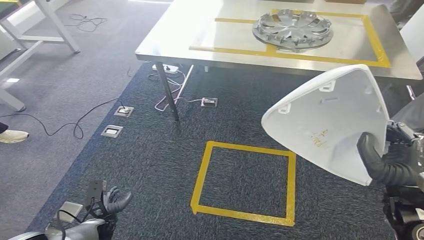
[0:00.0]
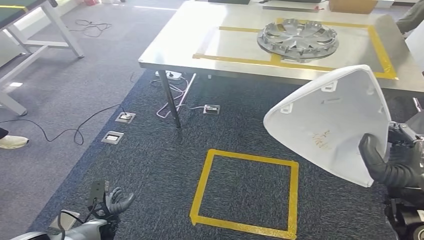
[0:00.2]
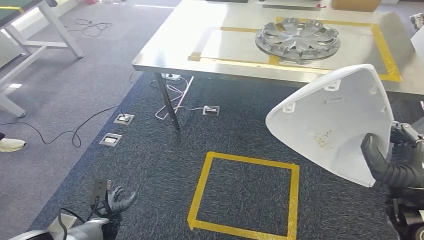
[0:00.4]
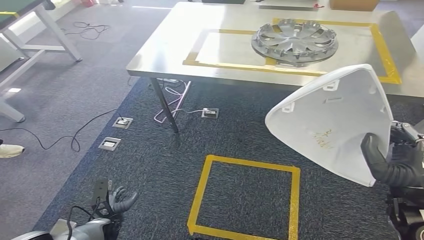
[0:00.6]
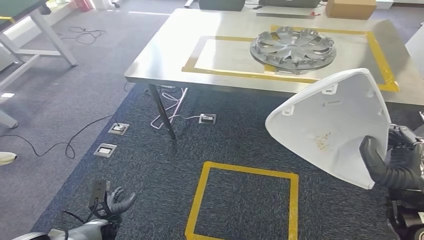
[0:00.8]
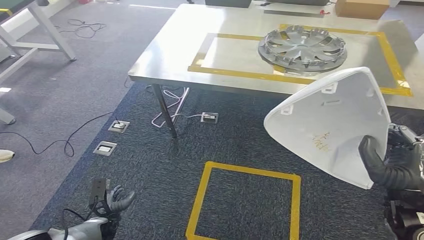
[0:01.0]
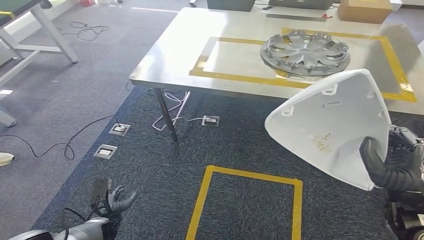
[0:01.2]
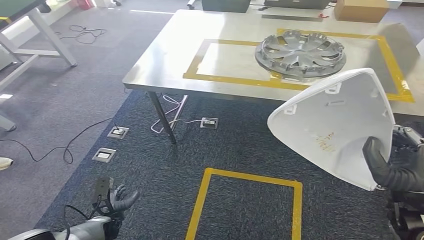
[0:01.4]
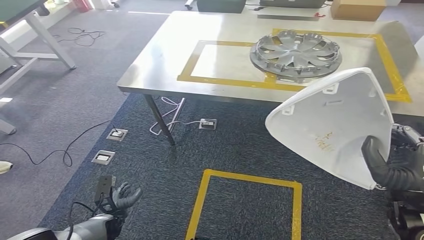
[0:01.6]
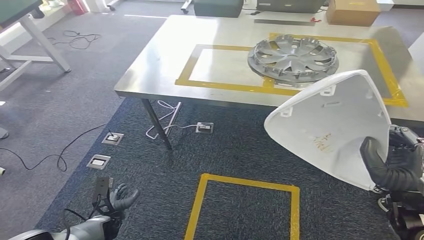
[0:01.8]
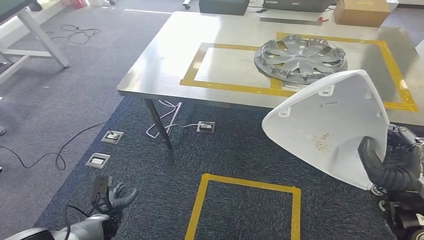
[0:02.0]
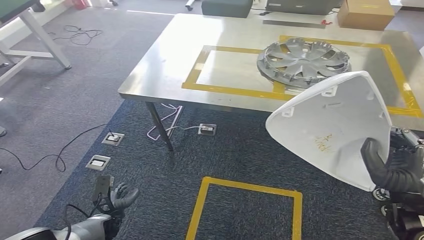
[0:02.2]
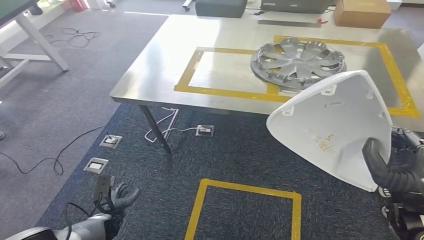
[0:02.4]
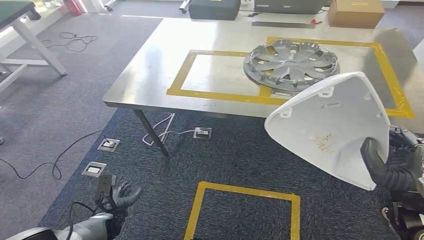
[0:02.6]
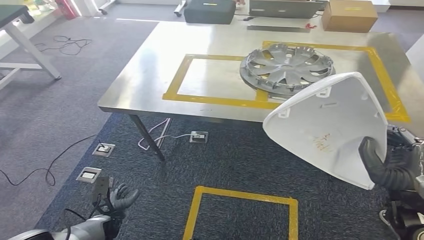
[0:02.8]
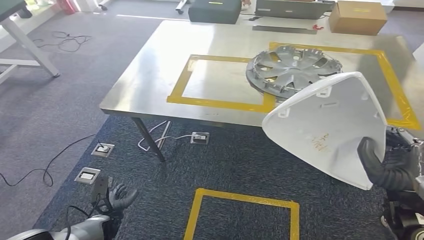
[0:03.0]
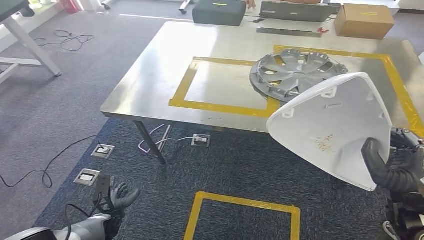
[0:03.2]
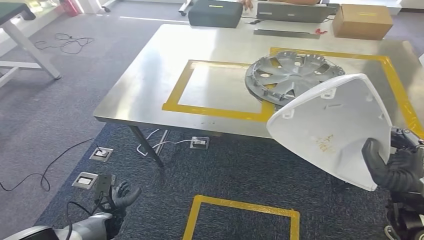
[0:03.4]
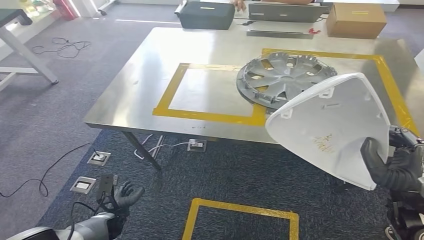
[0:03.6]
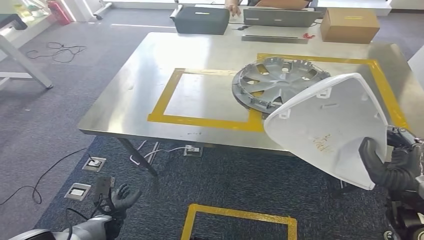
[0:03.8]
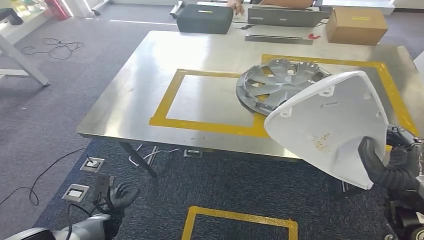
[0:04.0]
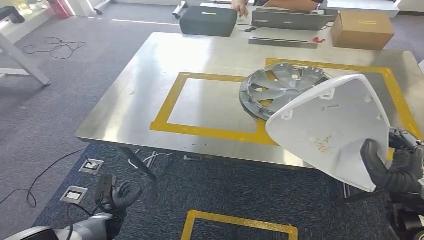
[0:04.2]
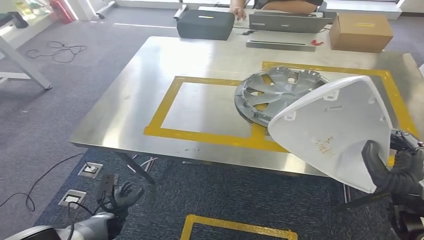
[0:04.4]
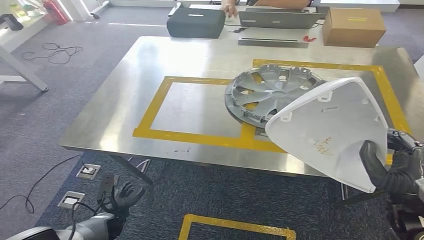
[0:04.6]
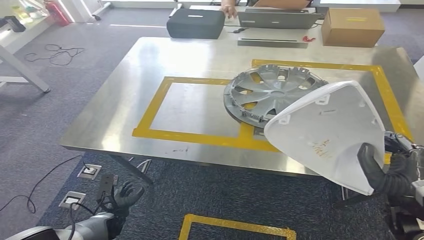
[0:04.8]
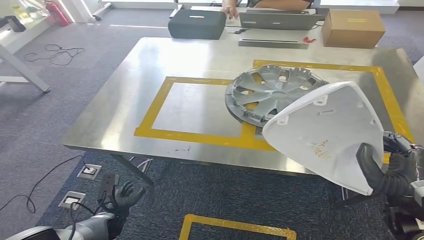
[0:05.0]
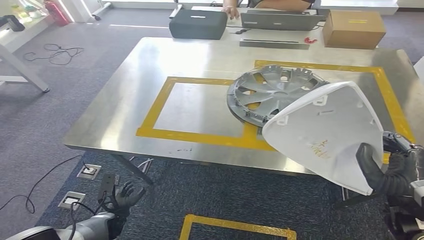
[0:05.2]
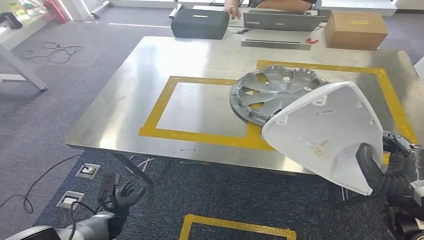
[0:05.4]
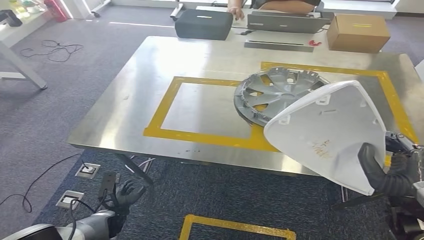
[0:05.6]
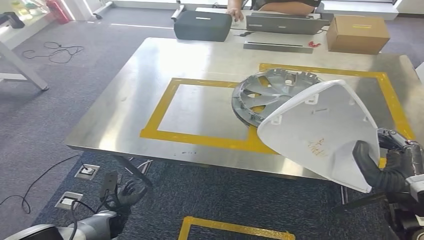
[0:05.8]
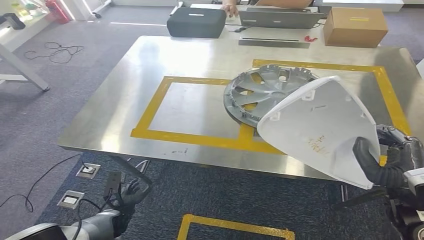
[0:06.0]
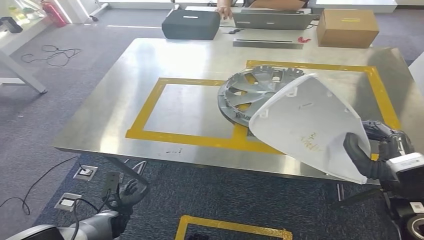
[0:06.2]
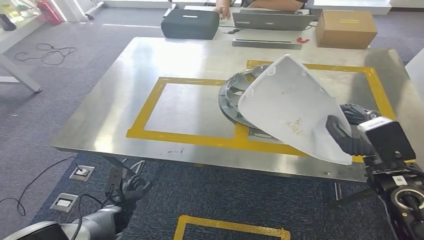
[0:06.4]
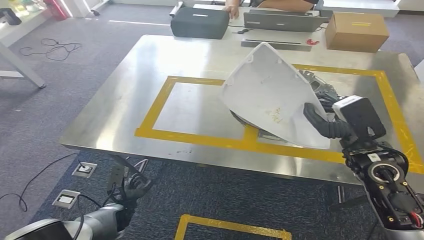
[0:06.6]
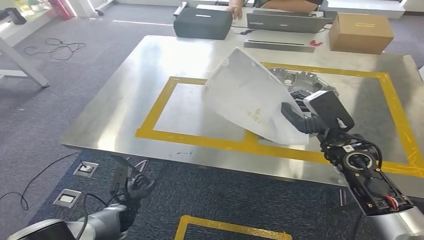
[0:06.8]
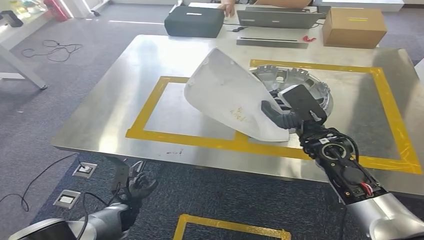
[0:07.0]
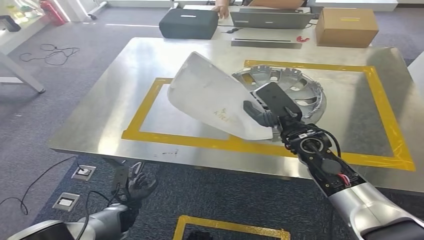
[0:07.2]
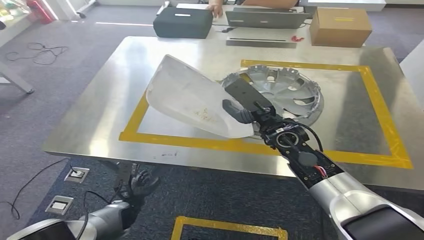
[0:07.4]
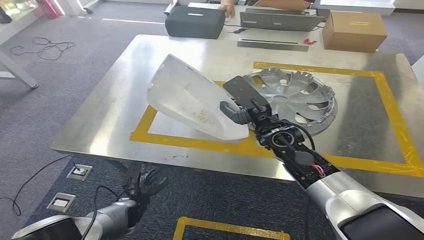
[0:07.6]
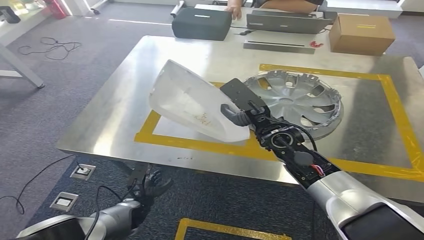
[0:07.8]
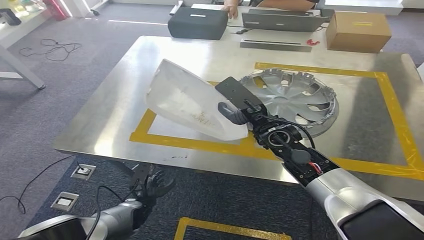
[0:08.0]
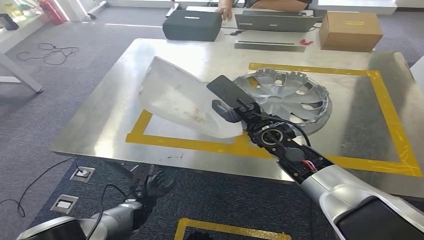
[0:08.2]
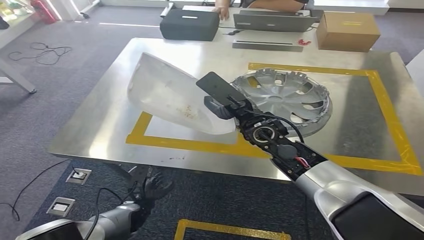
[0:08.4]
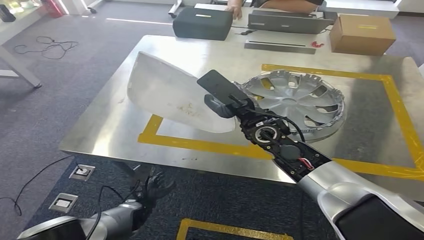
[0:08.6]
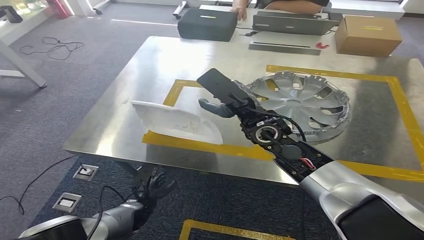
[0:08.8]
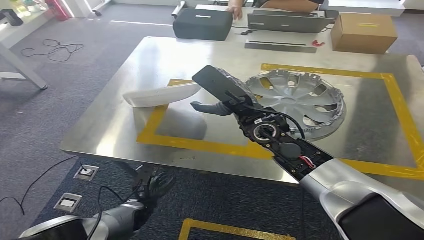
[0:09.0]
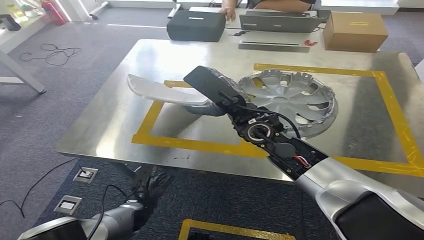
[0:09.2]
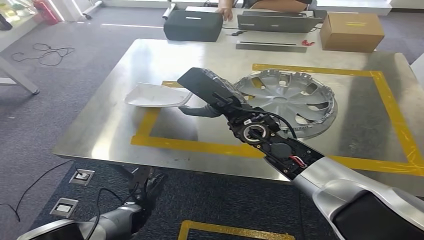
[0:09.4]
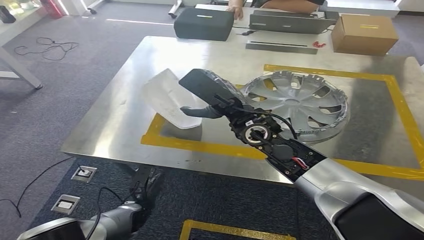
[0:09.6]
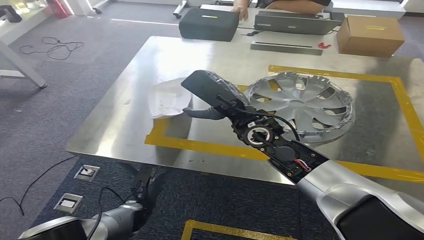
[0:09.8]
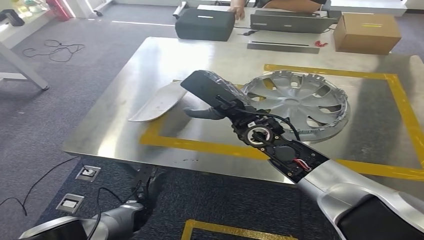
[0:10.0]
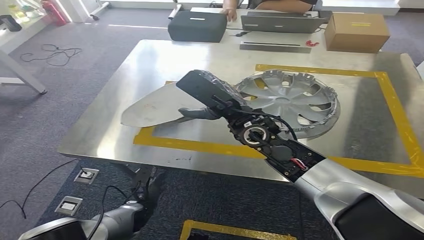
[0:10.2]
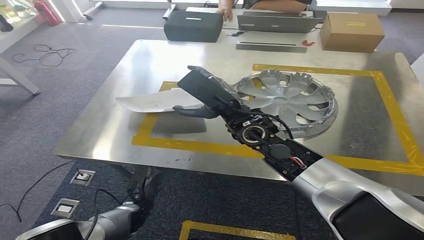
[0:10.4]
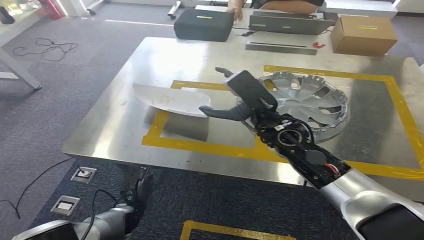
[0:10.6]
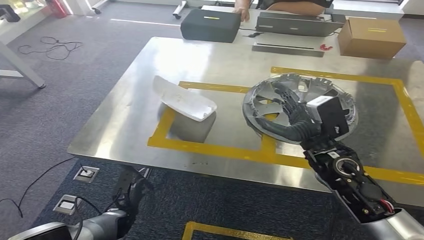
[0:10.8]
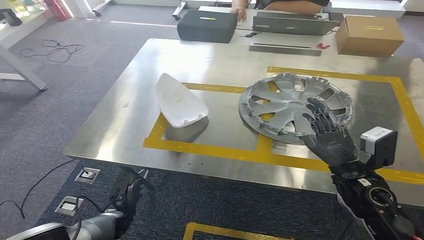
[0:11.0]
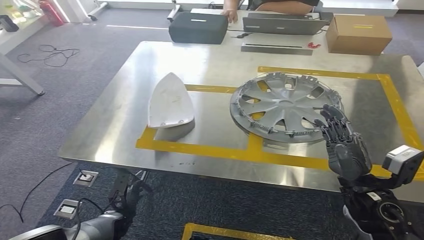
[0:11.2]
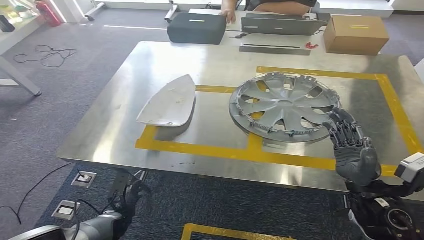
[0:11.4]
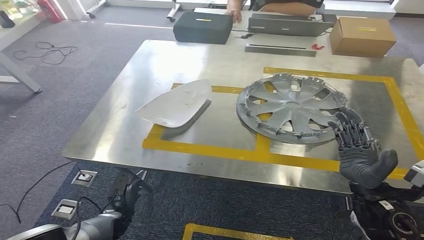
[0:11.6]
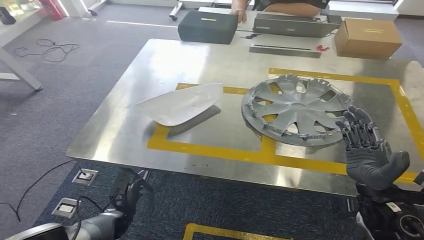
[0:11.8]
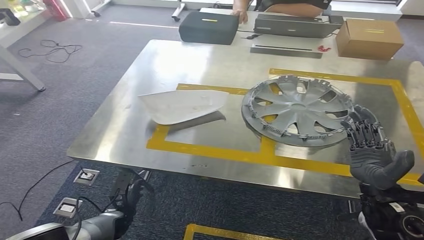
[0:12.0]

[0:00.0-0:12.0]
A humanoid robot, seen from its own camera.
Step, 0:00.0 to 0:06.4: Move the small parts to the workbench.

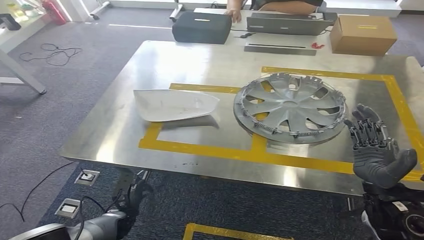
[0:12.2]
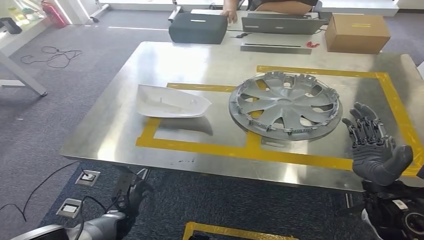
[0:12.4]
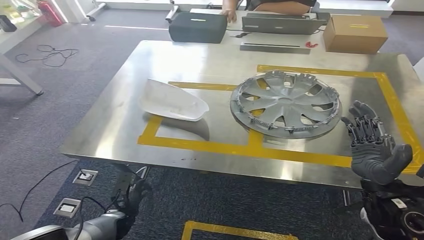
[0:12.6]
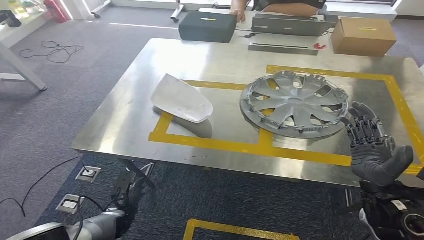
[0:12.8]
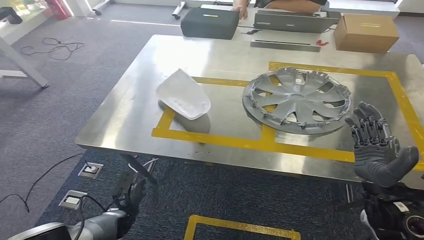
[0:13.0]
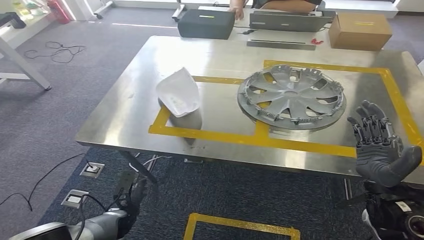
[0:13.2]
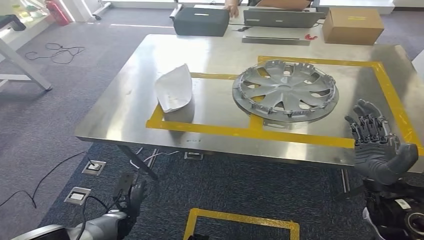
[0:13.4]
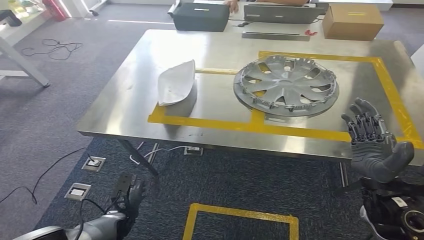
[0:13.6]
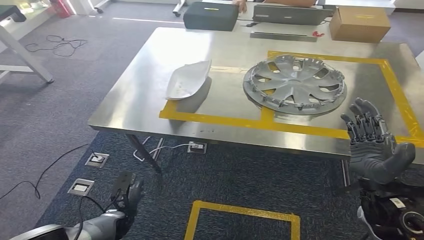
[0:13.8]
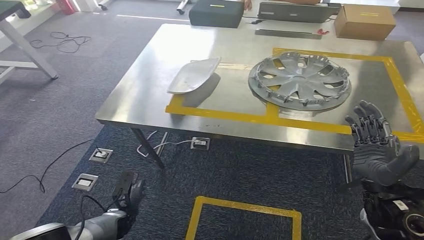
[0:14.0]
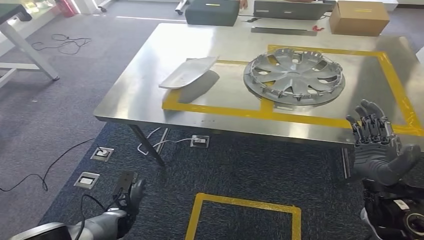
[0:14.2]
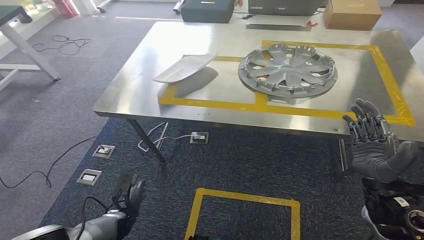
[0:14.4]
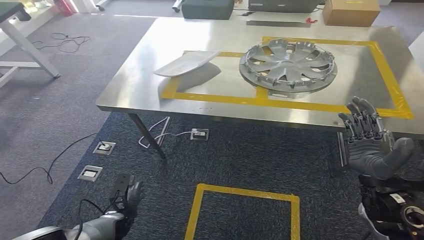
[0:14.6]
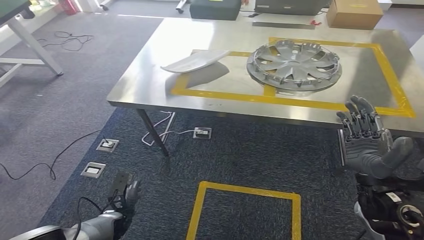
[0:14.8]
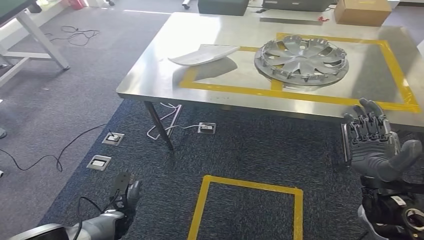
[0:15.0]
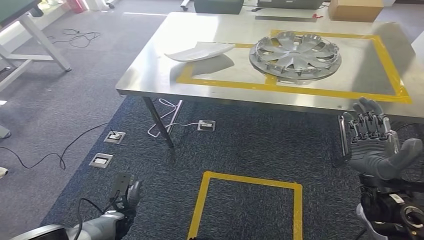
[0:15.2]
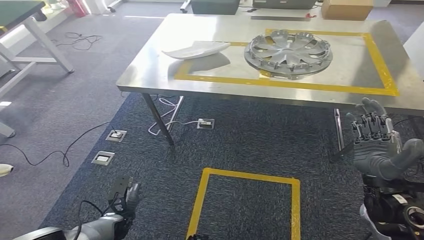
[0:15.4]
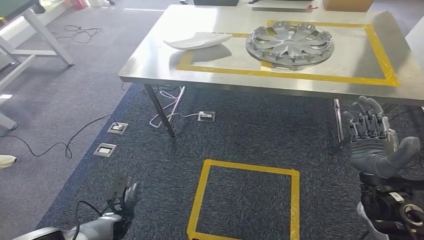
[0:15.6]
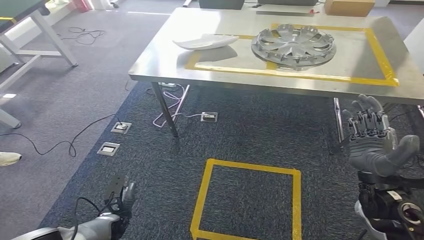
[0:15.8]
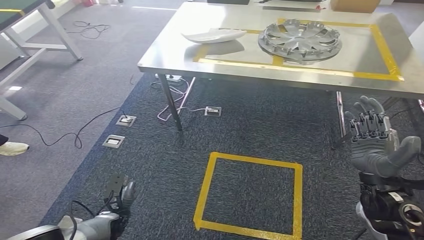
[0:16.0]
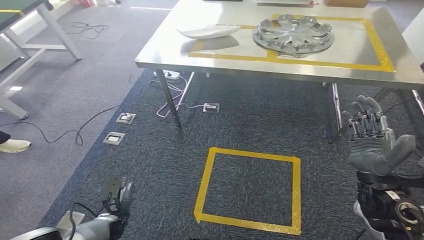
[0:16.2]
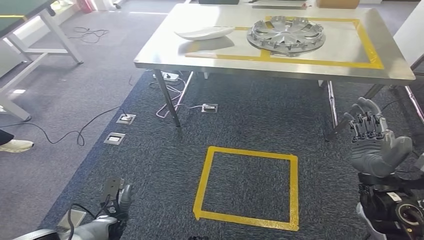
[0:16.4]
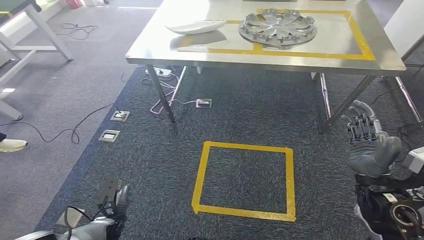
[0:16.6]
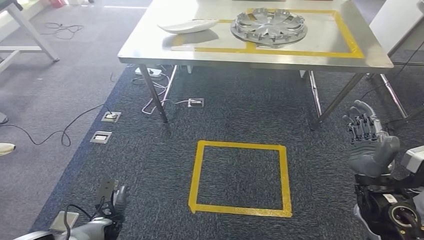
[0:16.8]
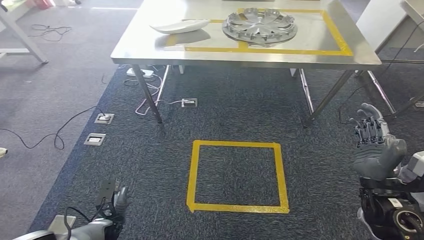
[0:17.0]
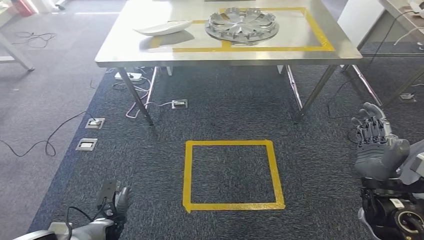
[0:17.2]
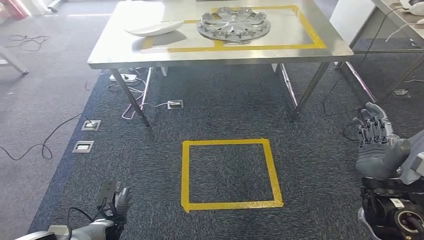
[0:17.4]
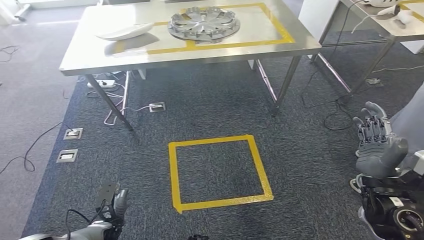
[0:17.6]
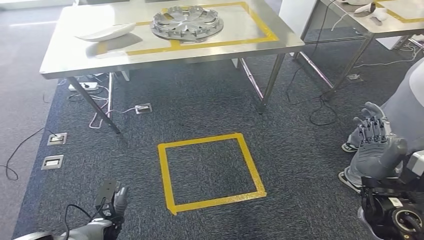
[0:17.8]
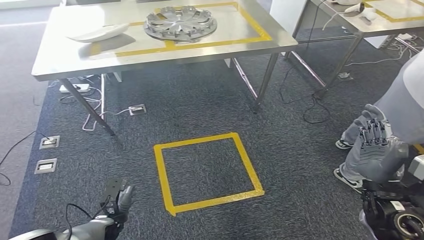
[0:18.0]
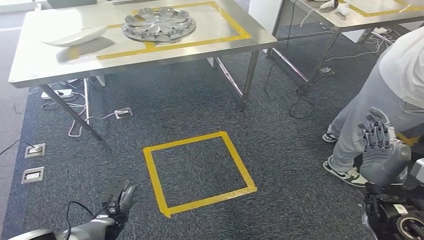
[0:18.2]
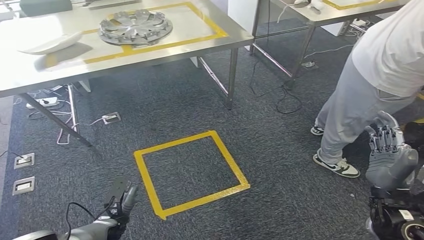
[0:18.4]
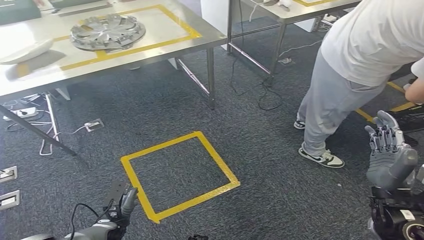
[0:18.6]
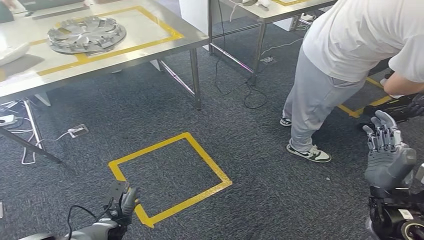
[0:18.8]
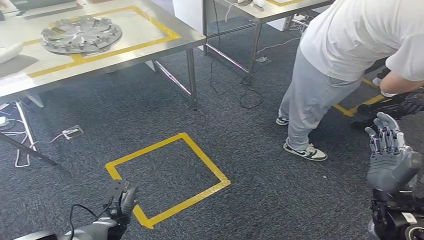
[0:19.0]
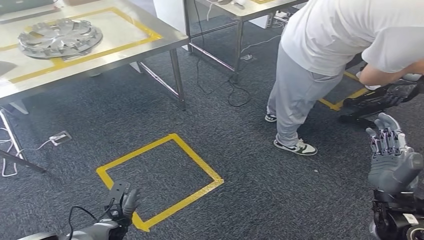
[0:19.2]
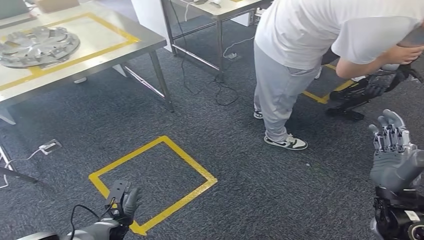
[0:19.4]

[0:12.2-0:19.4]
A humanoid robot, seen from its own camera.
Step, 0:12.2 to 0:15.0: Insert the small parts into the corresponding slots on the workbench.
